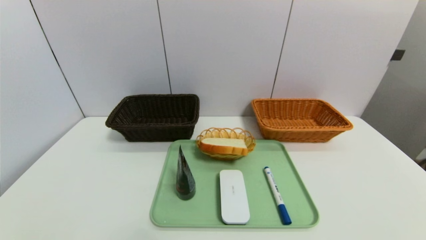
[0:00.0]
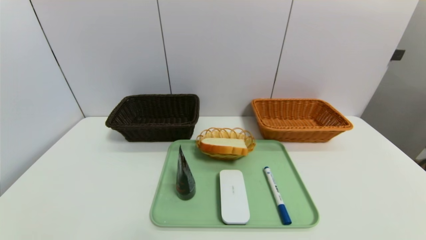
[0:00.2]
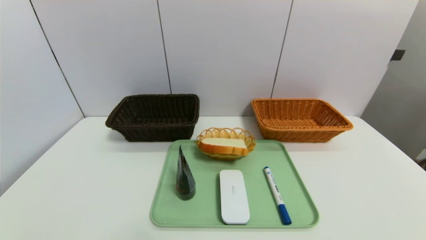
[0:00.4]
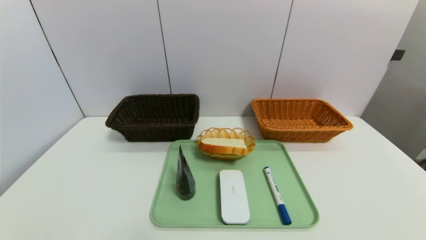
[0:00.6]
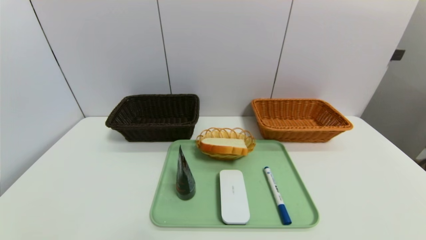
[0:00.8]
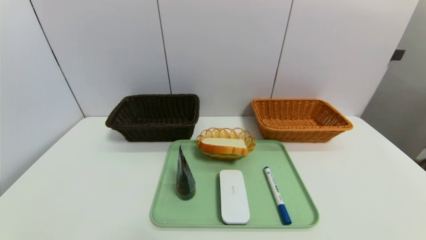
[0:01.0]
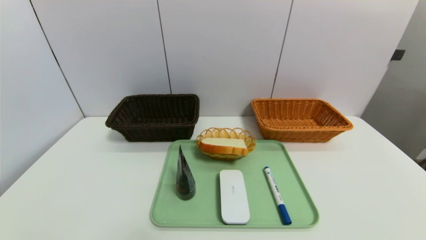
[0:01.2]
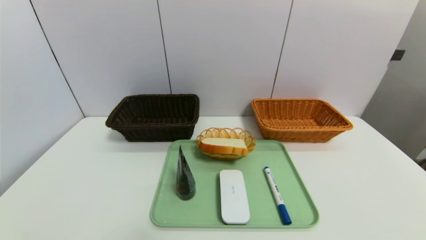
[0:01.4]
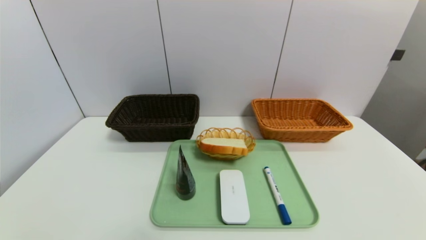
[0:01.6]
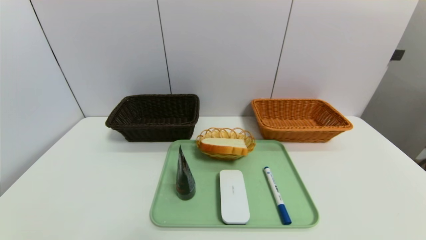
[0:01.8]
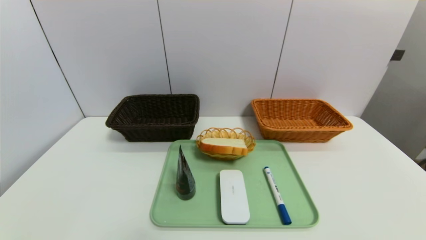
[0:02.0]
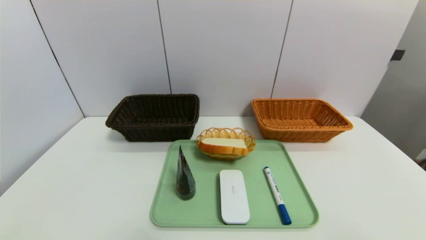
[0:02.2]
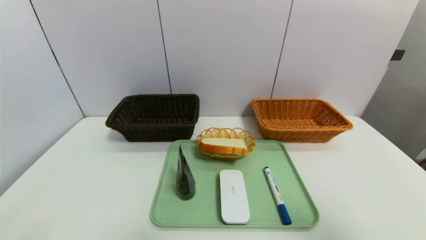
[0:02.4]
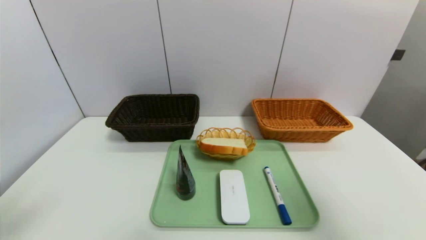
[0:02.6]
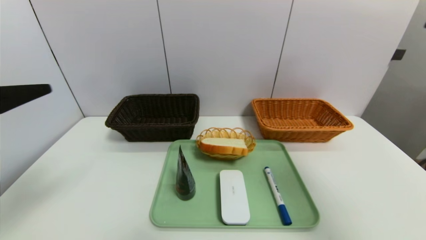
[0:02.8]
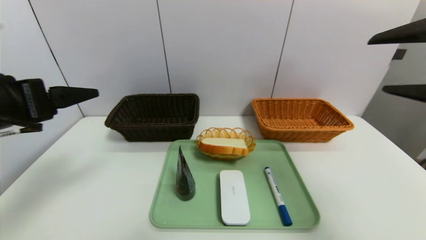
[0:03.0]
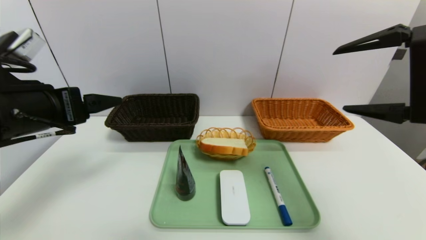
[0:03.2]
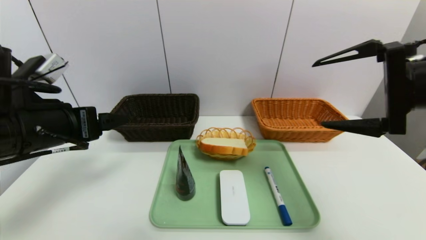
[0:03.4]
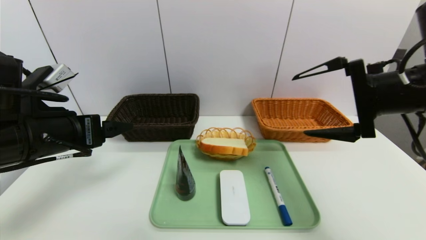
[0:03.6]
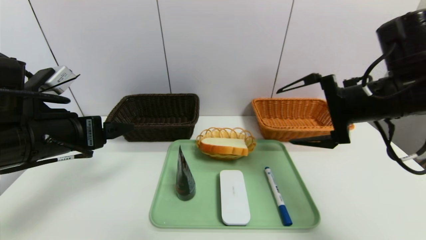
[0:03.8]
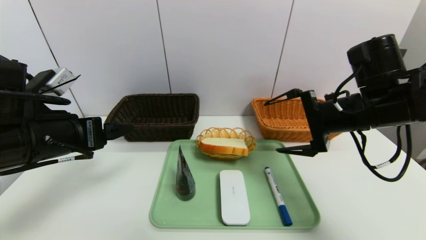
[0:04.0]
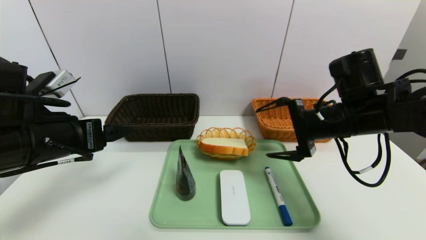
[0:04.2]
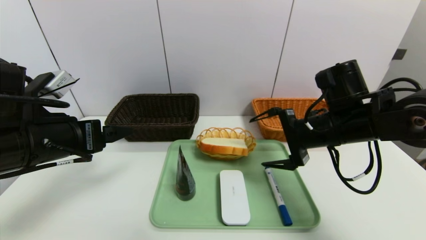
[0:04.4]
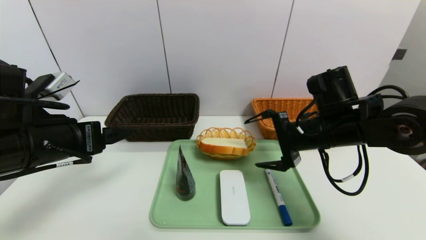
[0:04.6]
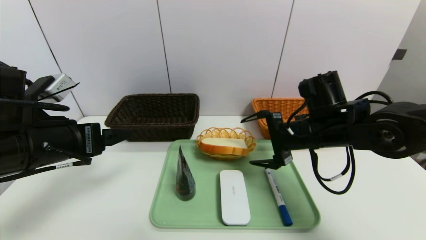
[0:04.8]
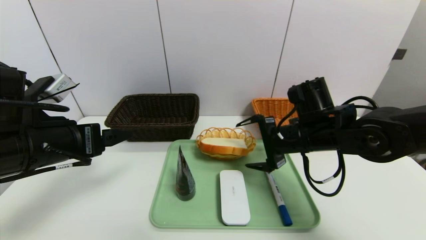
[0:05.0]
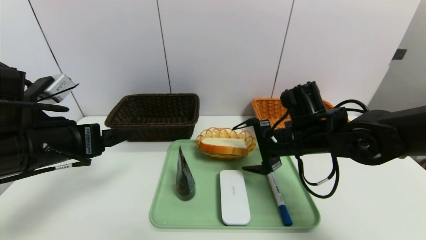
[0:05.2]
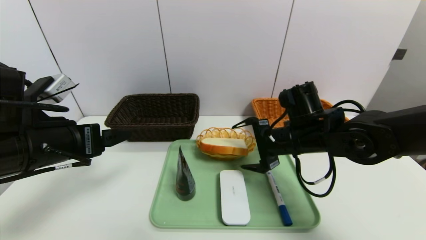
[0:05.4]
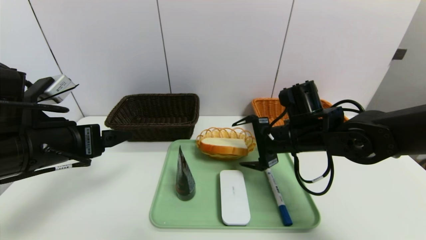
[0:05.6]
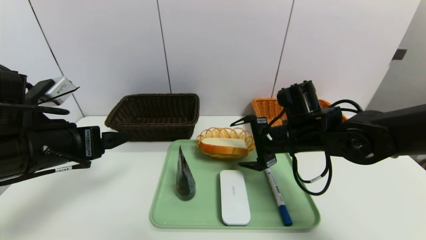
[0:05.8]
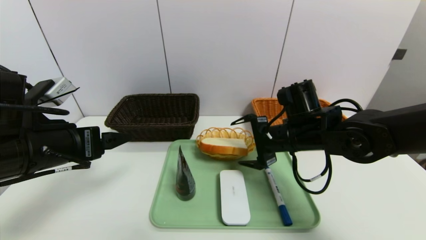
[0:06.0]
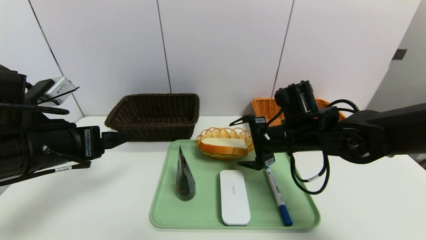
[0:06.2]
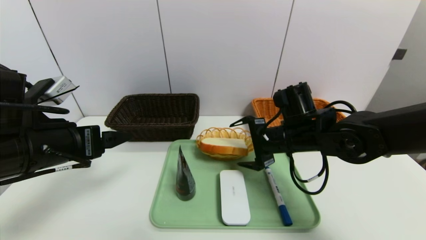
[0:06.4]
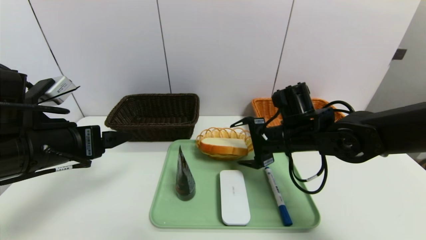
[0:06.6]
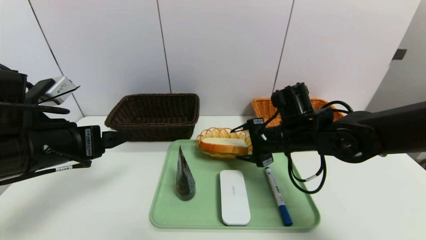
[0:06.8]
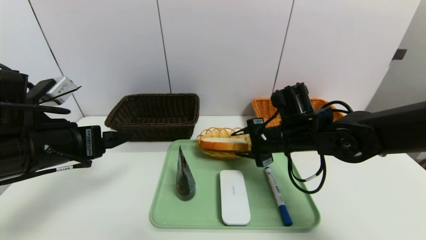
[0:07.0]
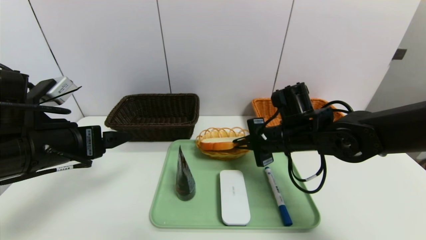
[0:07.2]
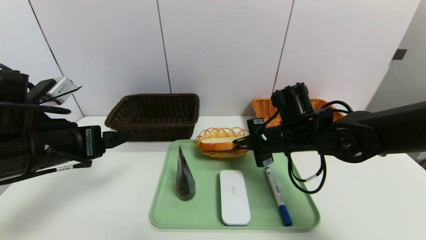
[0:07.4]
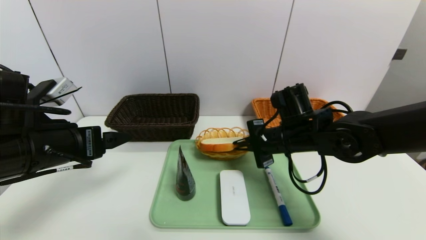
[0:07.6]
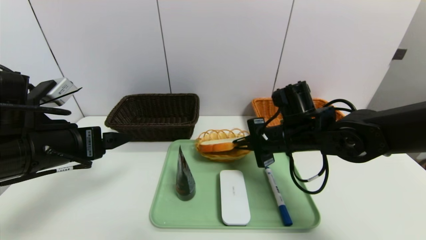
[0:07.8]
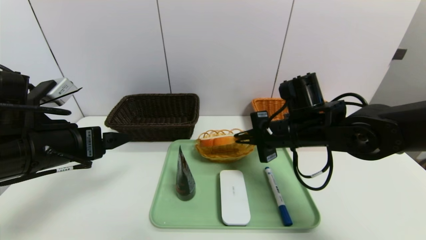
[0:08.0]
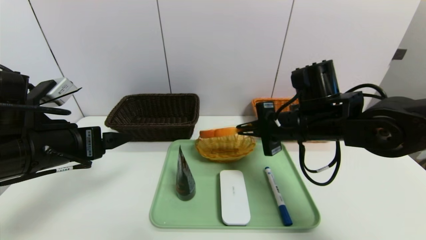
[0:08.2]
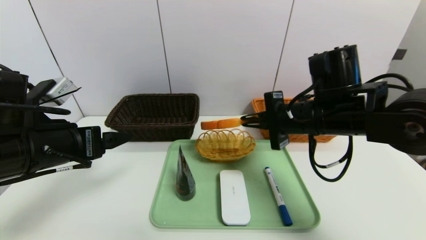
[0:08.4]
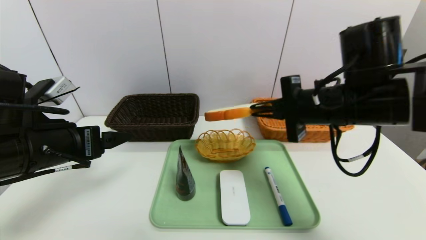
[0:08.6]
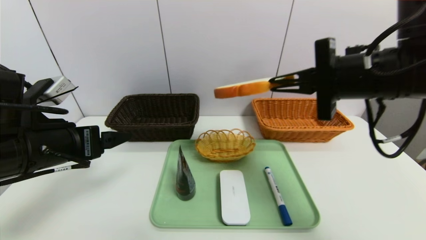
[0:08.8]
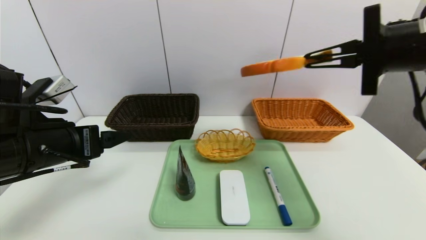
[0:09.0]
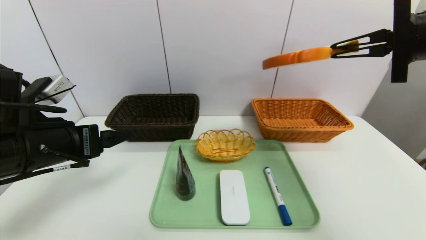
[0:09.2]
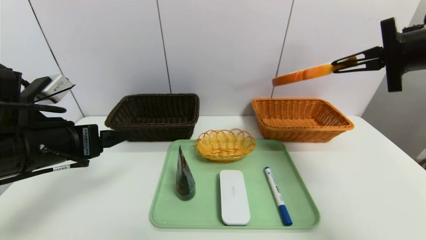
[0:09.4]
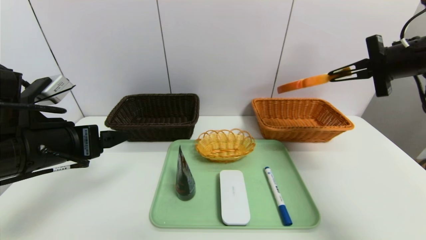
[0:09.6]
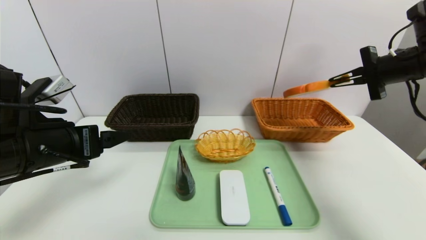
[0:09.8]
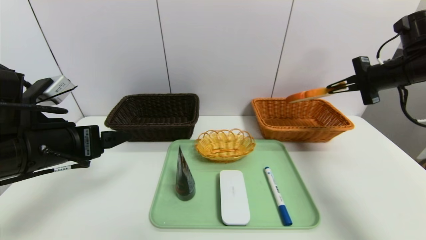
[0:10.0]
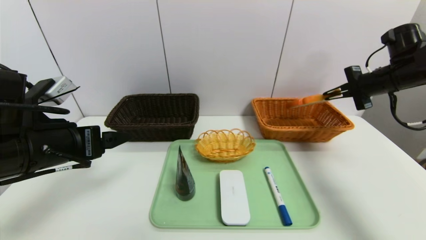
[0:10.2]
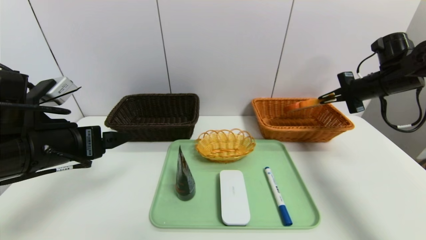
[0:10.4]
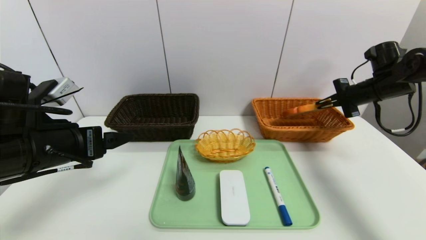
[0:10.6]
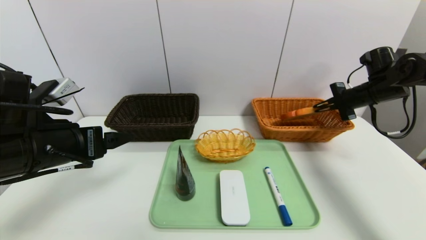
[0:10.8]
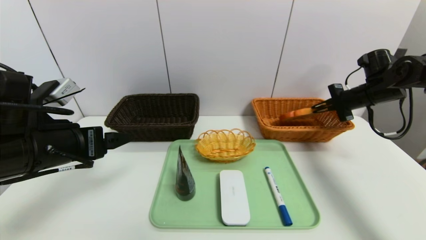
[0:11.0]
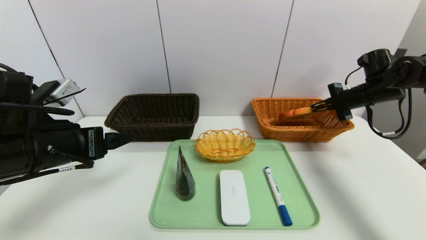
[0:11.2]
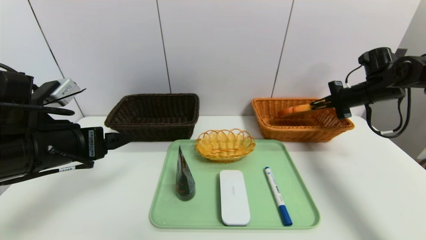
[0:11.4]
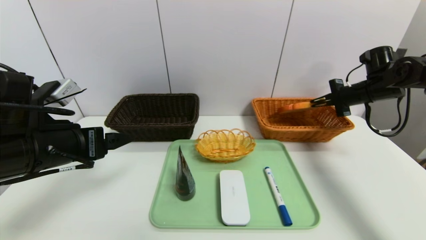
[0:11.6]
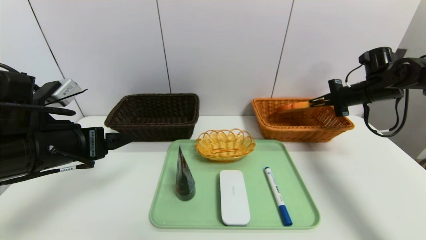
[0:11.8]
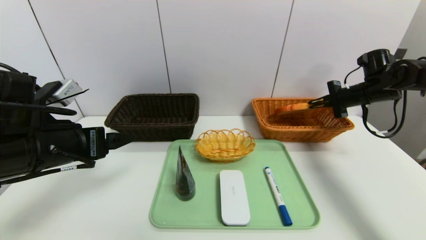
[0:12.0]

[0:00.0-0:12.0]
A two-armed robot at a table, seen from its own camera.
Task of the whole recording: place the food in the right basket with the right gripper, and place the non food items in the left basket with the left gripper.
0:01.6 to 0:03.0: The left gripper is displaced upward and forward by about 30 cm, while the right gripper travels forward and upward by approximately 30 cm.
0:03.0 to 0:04.4: The right gripper shifts roughly 20 cm downward, forward and to the left. The left gripper moves downward, about 5 cm.
0:04.4 to 0:06.0: The right gripper changes place by about 5 cm.
0:06.0 to 0:07.6: The right gripper closes its fingers.
0:07.6 to 0:09.0: The right gripper travels upward, to the right and backward by about 25 cm.
0:09.0 to 0:10.4: The right gripper goes roughly 25 cm forward, to the right and downward.
0:10.4 to 0:12.0: The grippers stay close to where they were, moving slightly.

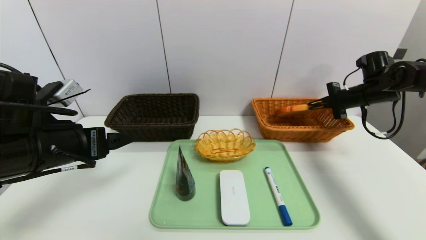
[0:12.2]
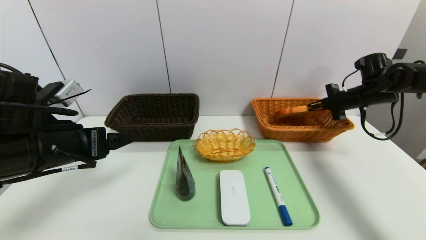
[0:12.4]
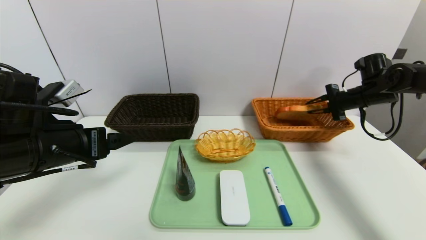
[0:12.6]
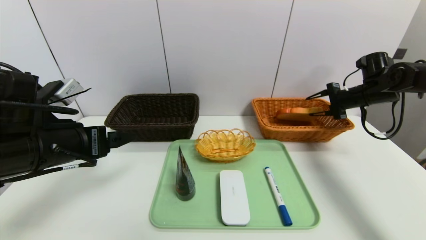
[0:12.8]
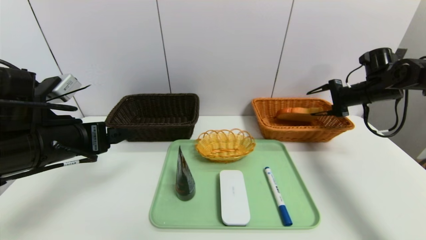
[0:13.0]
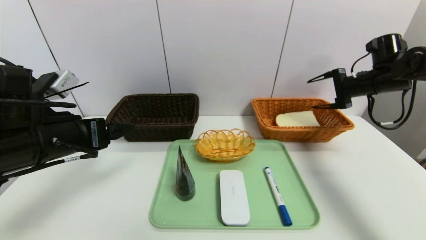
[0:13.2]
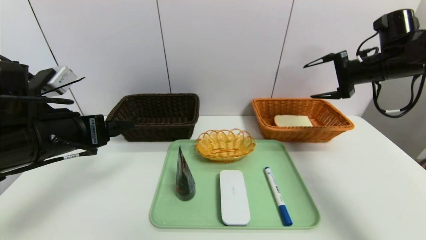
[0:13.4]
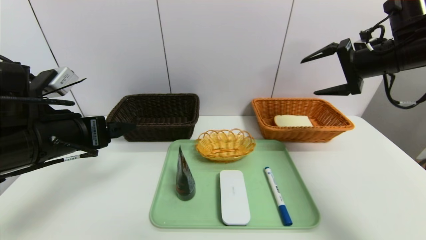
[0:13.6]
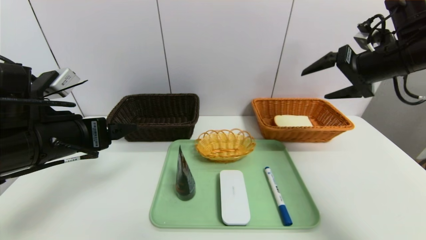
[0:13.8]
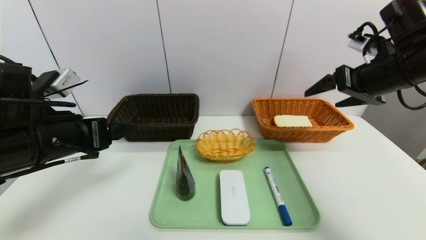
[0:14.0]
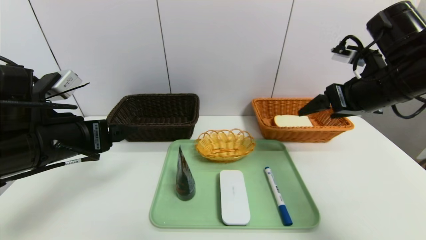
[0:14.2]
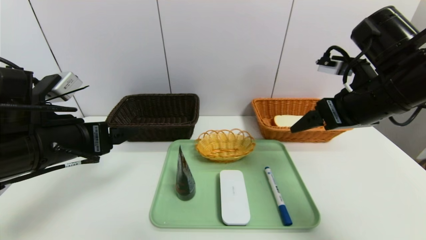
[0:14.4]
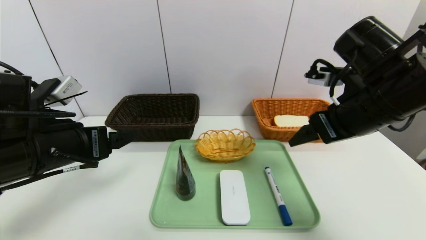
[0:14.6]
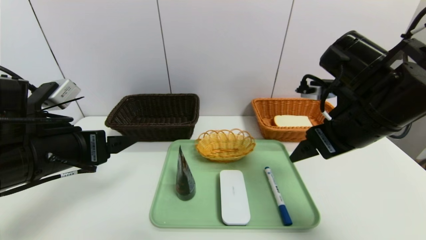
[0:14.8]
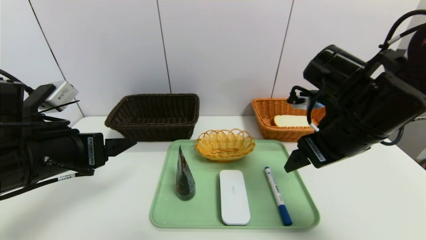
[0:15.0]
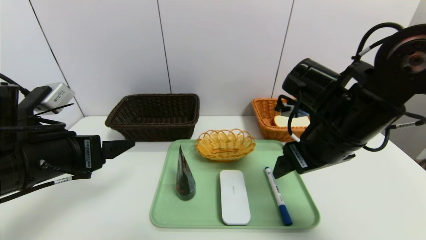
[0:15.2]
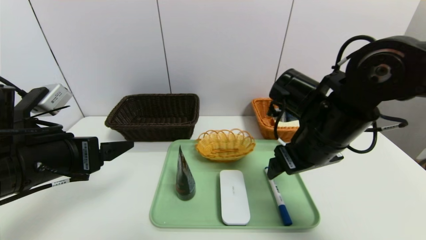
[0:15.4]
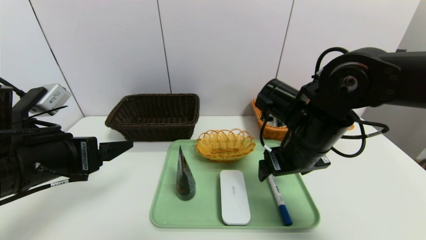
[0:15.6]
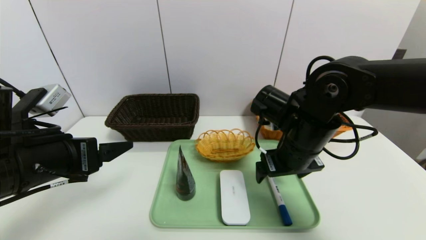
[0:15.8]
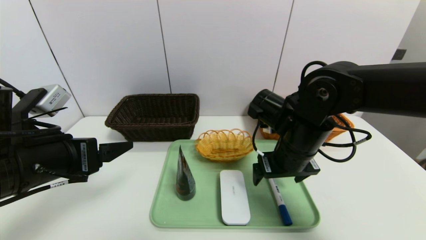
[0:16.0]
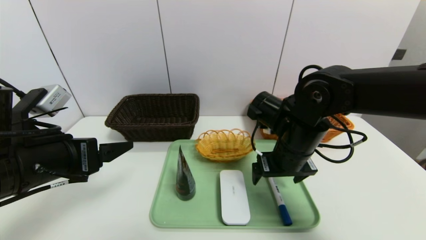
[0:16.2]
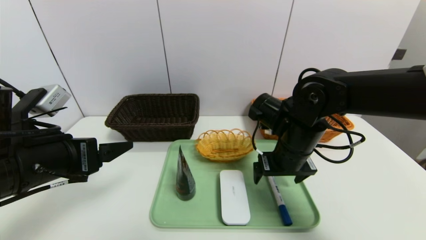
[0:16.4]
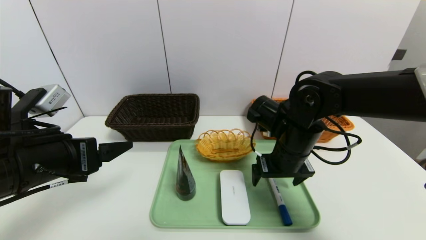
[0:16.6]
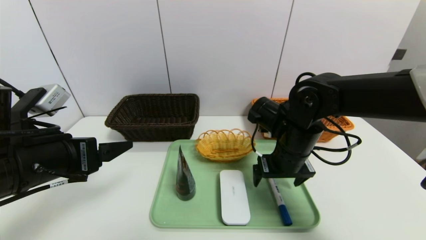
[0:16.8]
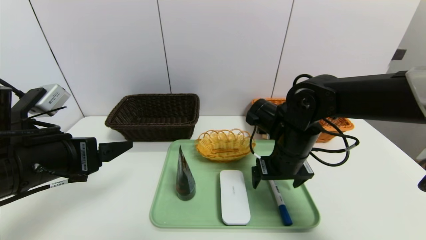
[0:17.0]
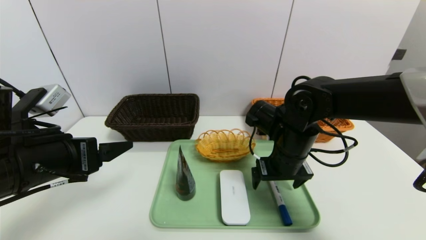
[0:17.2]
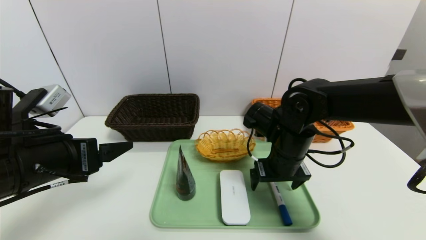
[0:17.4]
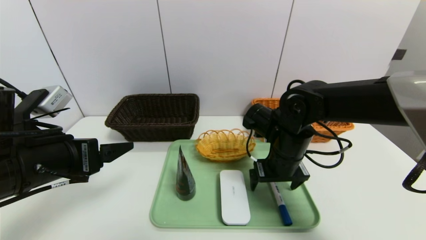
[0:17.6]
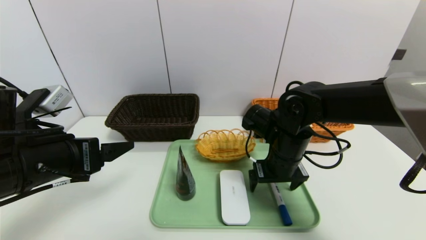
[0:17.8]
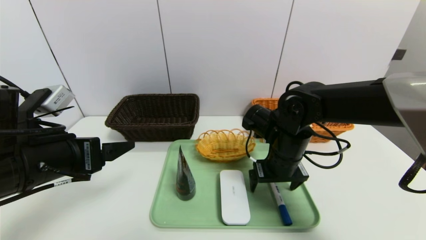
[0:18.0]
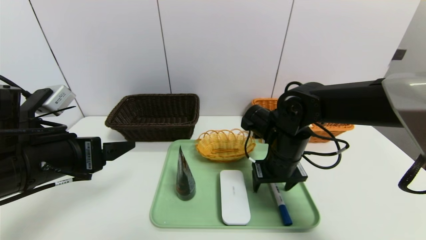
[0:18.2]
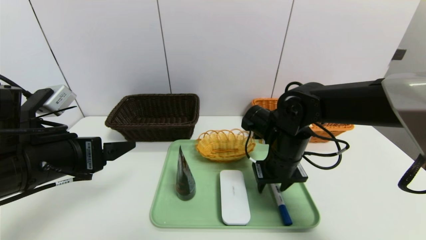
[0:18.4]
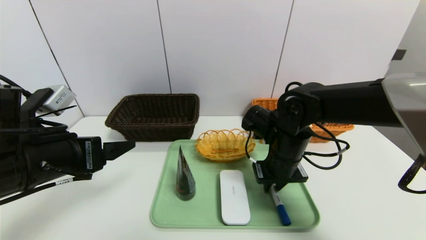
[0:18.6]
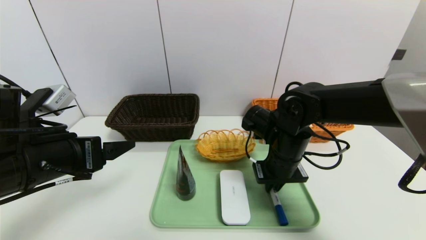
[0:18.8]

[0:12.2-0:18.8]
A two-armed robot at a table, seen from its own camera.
Task of the whole recording: place the food in the right basket with the right gripper, and place the non food items in the left basket with the left gripper.
0:12.2 to 0:13.8: The right gripper is displaced backward, upward and to the left by roughly 20 cm, and opens its fingers.
0:13.8 to 0:15.4: The right gripper travels to the left, downward and backward by some 20 cm.
0:15.4 to 0:17.2: The right gripper goes roughly 5 cm downward.
0:17.2 to 0:18.8: The right gripper closes its fingers.
